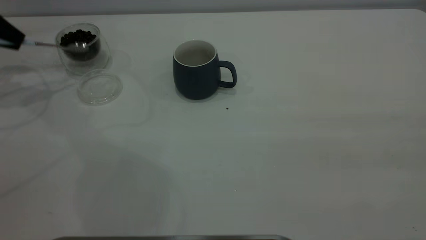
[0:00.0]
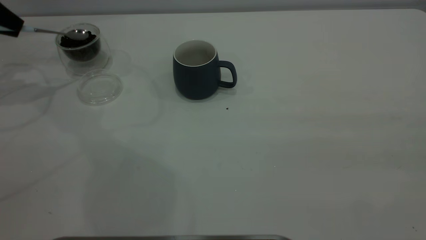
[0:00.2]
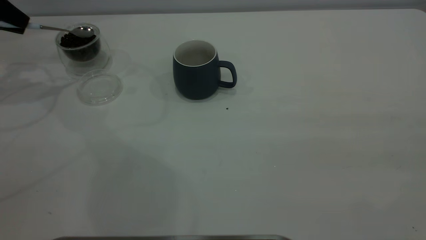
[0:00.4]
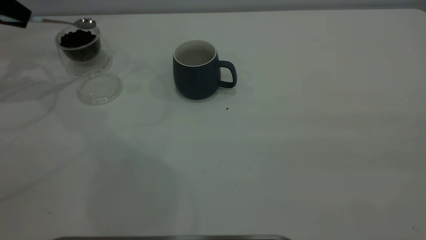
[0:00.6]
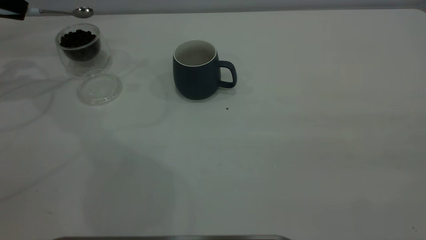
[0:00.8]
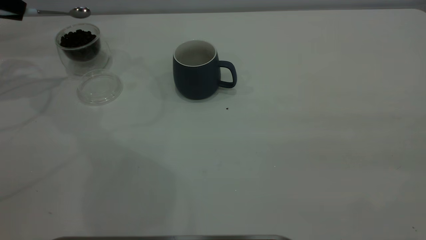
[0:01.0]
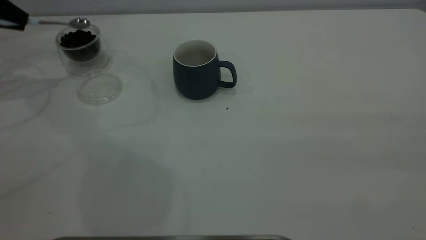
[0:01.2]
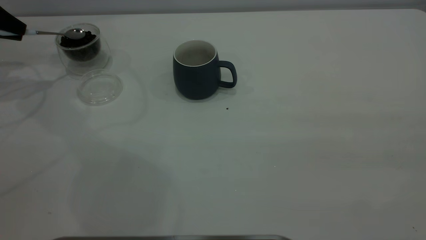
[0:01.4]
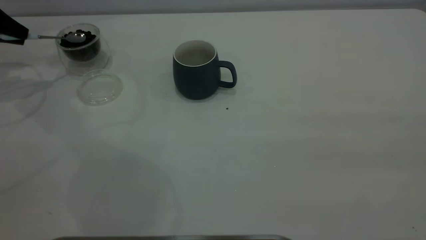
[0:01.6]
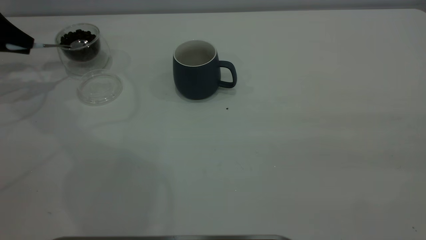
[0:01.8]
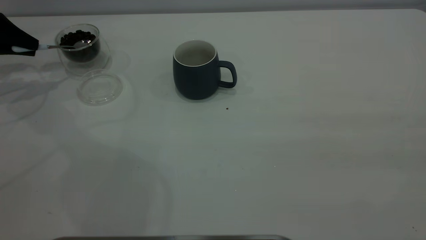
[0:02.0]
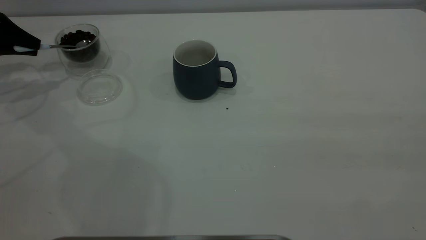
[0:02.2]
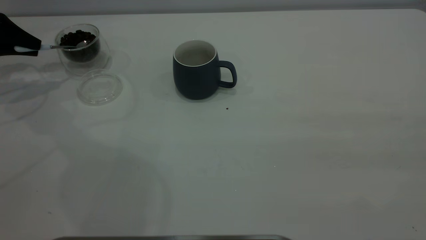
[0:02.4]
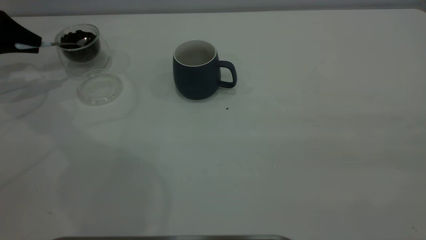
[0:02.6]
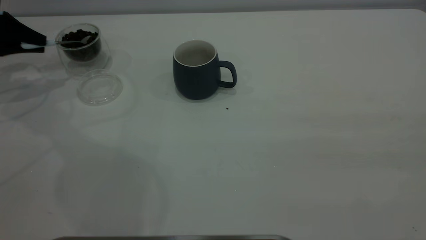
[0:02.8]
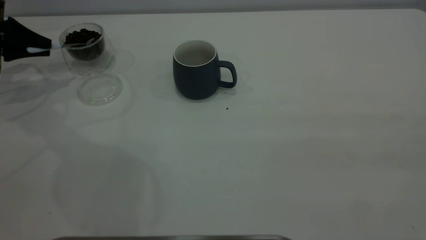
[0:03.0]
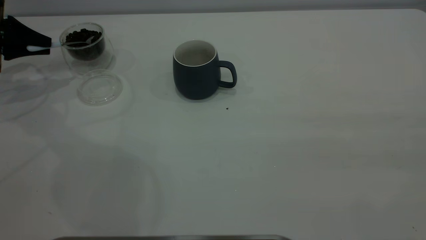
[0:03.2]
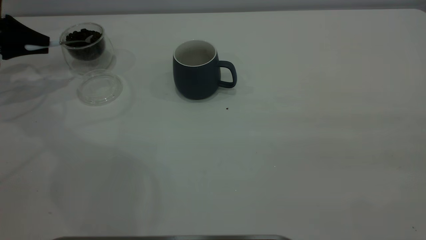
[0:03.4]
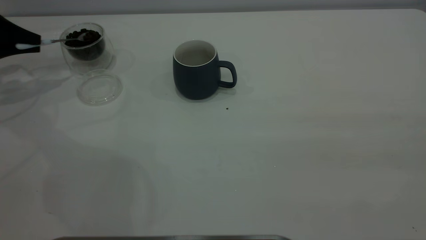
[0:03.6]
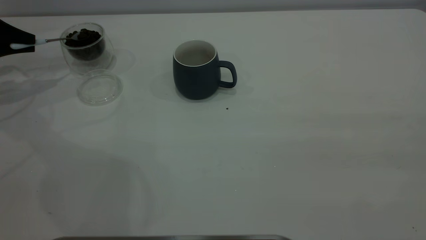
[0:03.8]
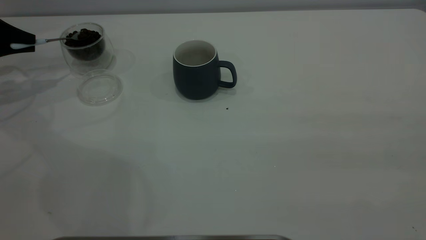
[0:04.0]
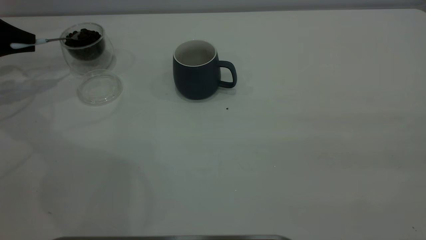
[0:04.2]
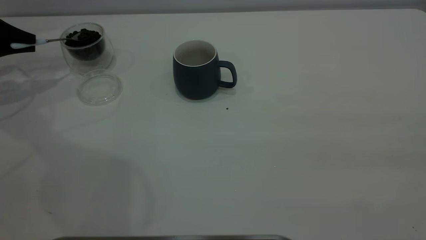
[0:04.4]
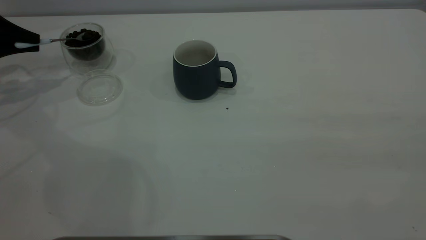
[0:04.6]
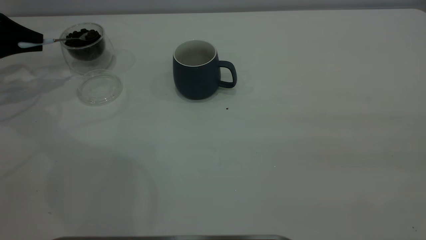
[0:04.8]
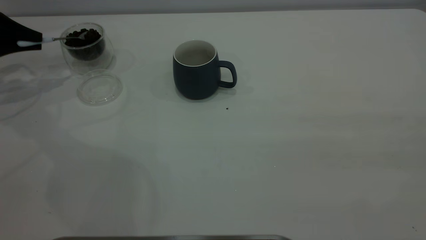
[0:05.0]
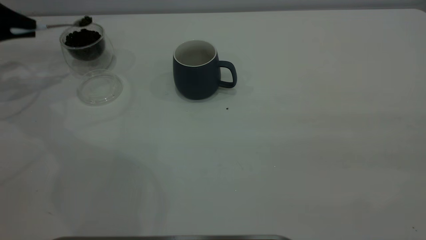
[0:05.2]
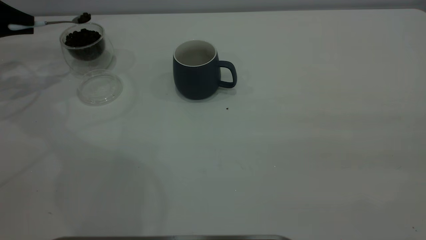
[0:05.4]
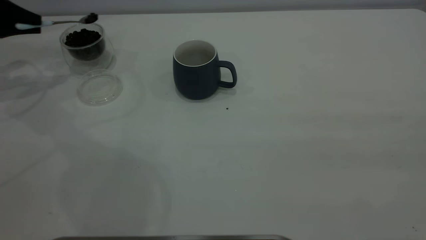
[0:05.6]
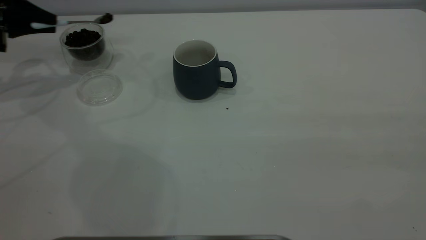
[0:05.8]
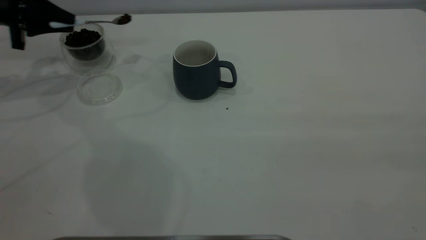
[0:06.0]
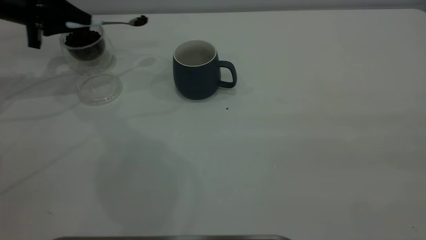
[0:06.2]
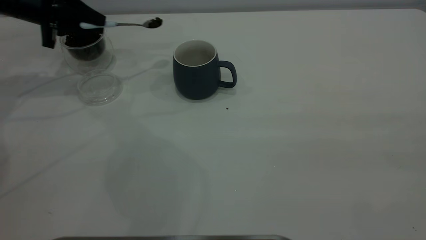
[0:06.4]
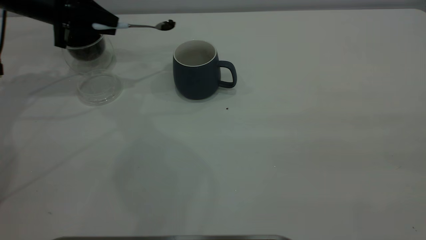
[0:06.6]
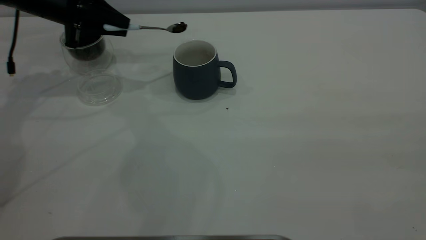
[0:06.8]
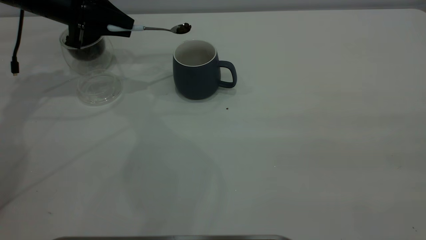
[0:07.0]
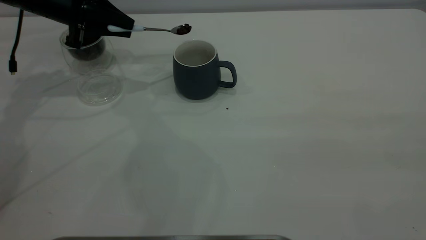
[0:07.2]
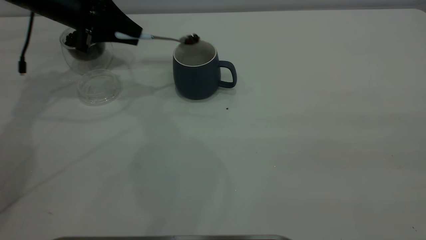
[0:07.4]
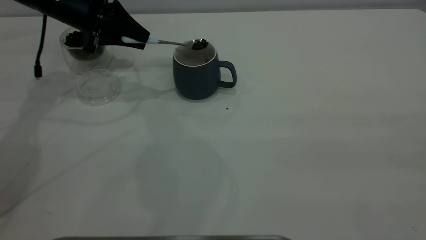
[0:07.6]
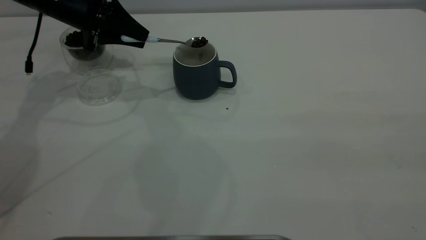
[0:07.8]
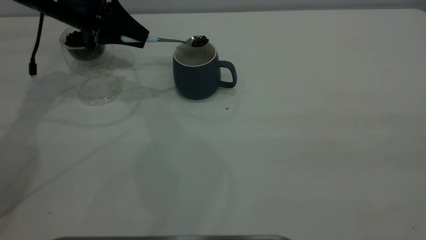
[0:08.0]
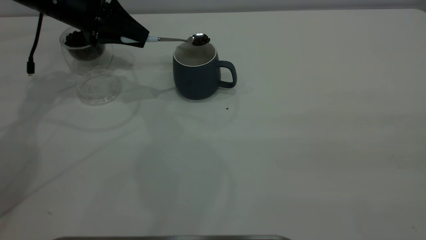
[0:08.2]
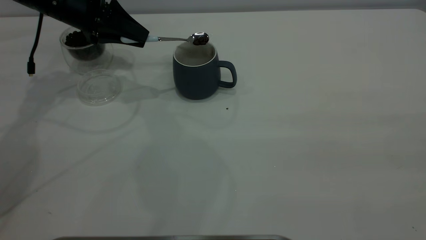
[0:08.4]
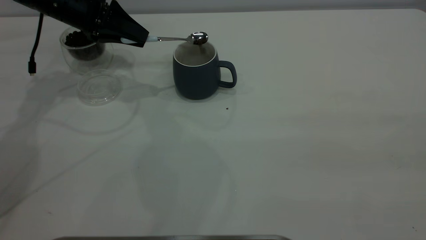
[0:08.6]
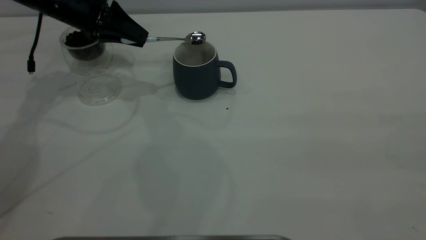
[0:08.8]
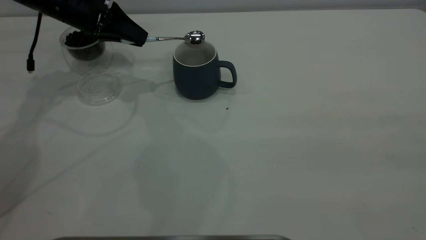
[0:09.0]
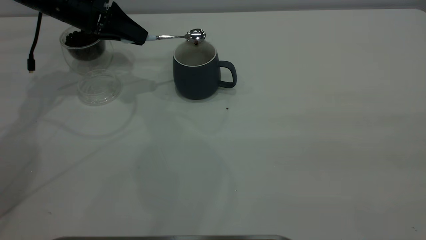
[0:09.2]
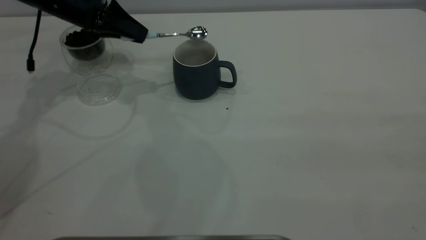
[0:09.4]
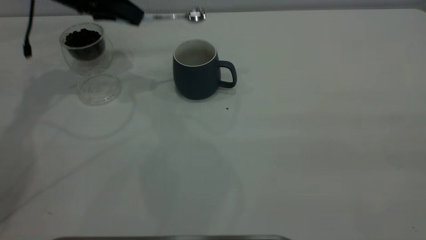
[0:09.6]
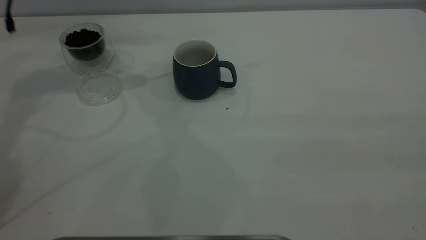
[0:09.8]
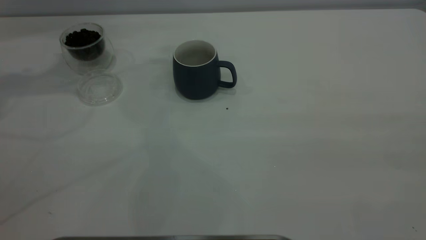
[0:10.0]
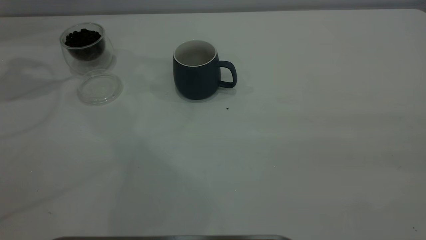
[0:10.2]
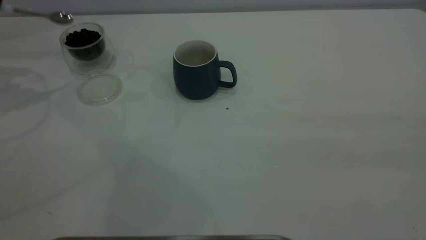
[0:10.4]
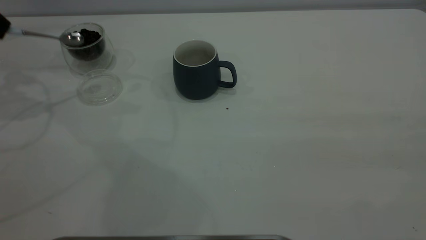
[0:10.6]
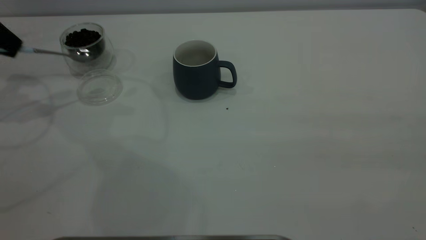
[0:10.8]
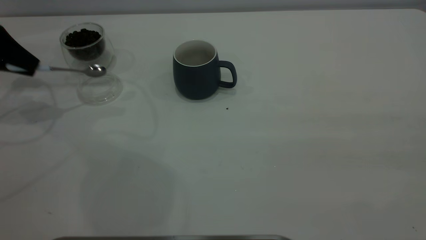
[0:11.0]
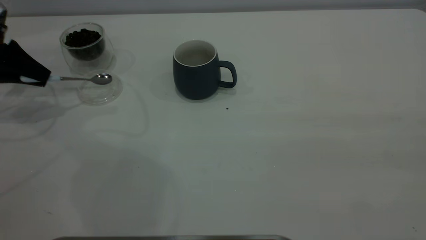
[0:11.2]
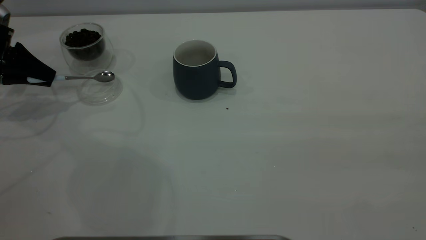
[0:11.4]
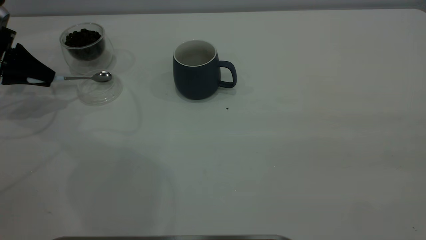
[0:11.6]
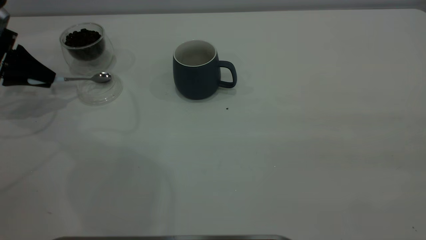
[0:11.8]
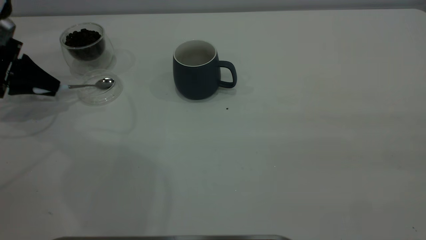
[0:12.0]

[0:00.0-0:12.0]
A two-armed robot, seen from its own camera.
Task of the whole recording: the right gripper place the grey cup in the center of the table, the left gripper take the blue spoon from the cup lid and scoop out the coffee beans from the coffee cup and put them into the grey cup, the left gripper put the spoon back into the cup lid.
Step, 0:00.2 to 0:09.4: Scoop a spoonful of beans into the cup.
0:01.6 to 0:03.0: The left gripper ends up roughly 5 cm from where it was.
0:03.0 to 0:04.4: The grippers stay close to where they were, moving slightly.
0:04.4 to 0:06.0: The left gripper is displaced to the right by about 10 cm.
0:06.0 to 0:07.6: The left gripper heads to the right, covering approximately 10 cm.
0:09.0 to 0:10.4: The left gripper is displaced to the left and upward by approximately 20 cm.
0:10.4 to 0:12.0: The left gripper moves downward, approximately 15 cm.

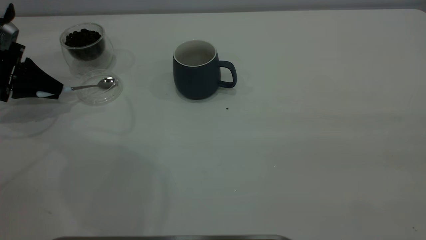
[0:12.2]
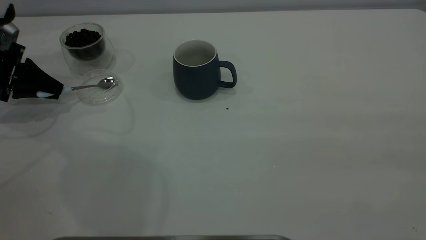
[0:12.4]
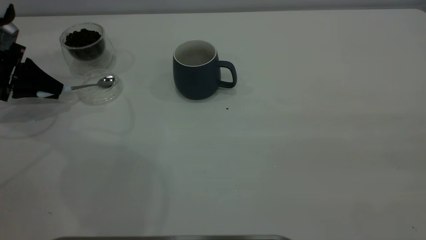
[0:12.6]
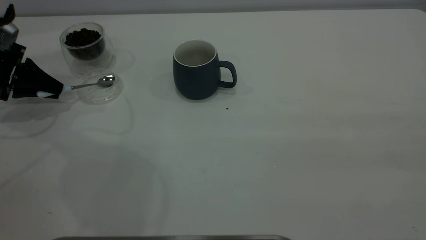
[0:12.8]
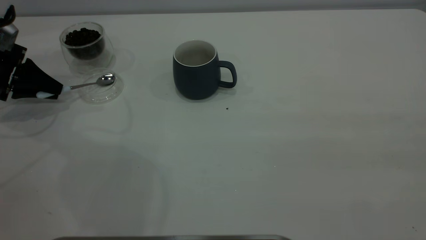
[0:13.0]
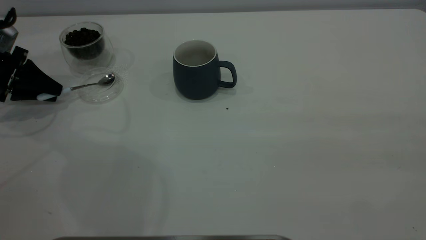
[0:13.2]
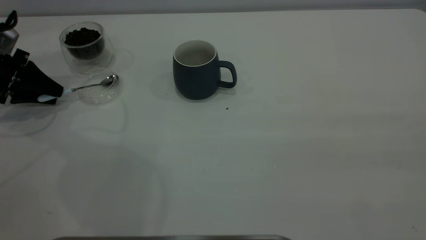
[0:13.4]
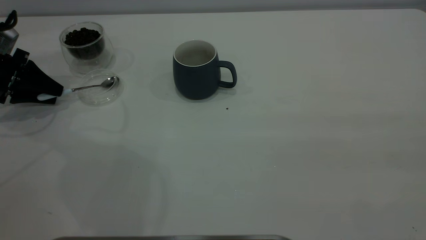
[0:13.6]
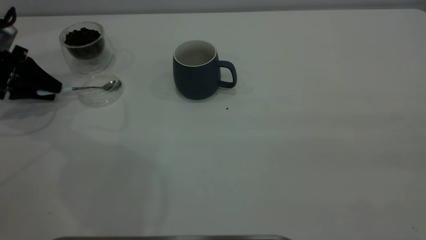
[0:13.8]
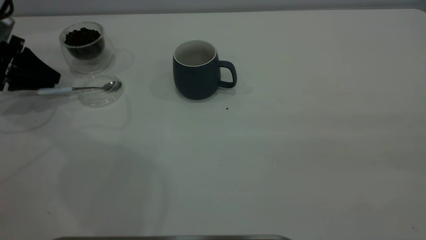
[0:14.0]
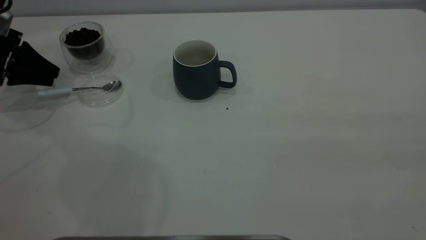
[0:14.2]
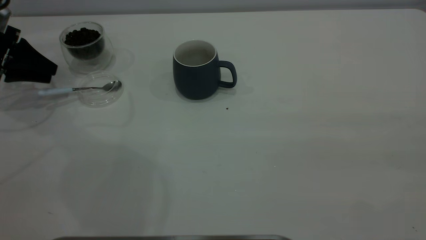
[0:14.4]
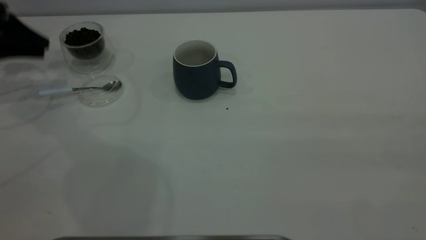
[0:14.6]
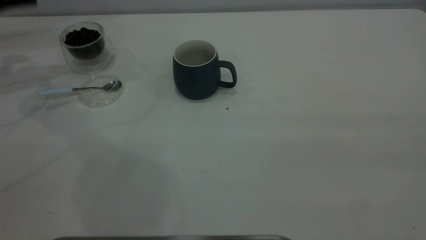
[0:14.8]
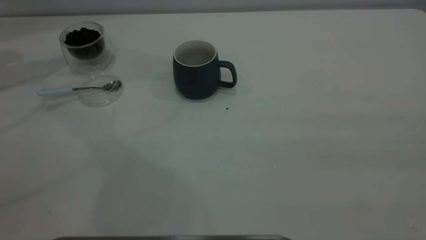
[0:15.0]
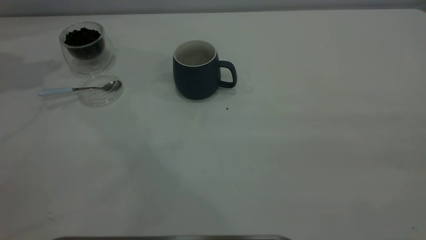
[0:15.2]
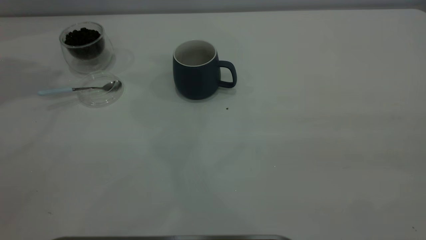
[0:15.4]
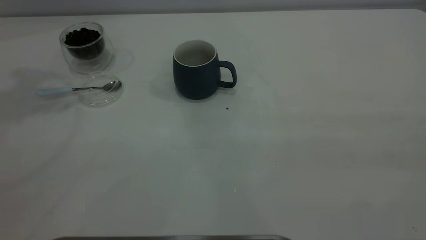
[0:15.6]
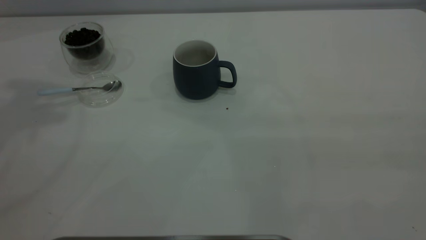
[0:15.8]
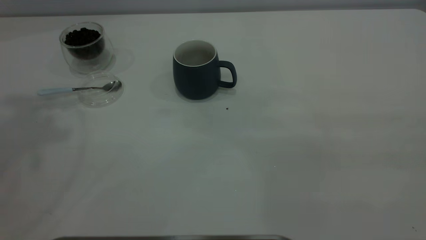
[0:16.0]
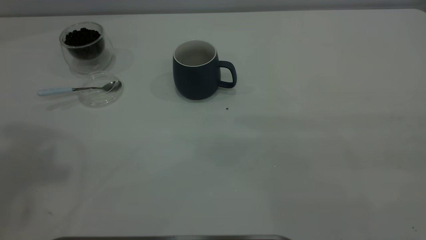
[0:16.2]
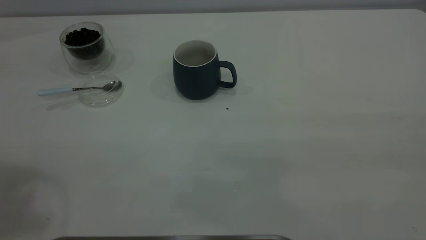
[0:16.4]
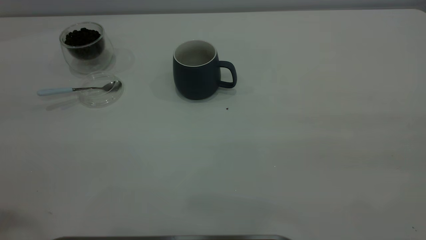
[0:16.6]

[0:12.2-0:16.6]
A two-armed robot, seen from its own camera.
Task of the whole recording: the right gripper place the grey cup in the center of the table, the left gripper take the blue spoon from the cup lid and scoop out the coffee beans from the coffee cup and put them into the grey cup, the left gripper put the spoon back into the cup lid.
Step, 0:12.2 to 0:14.6: Place the spoon back in its original place.
0:12.2 to 0:13.6: The left gripper opens up.
0:13.6 to 0:15.2: The left gripper goes some 30 cm upward.
